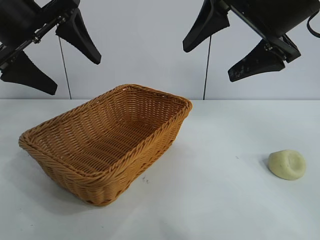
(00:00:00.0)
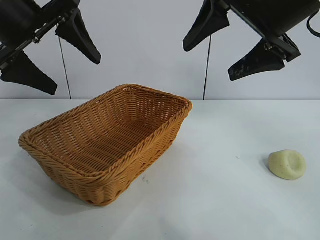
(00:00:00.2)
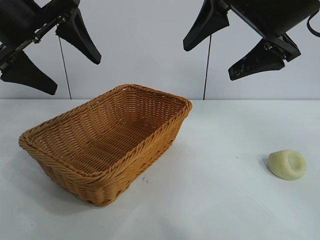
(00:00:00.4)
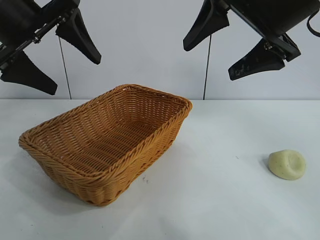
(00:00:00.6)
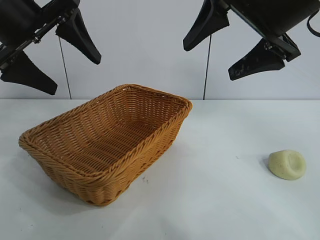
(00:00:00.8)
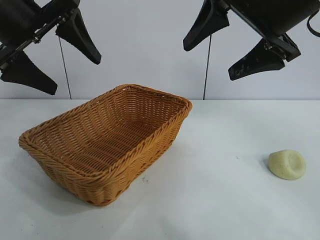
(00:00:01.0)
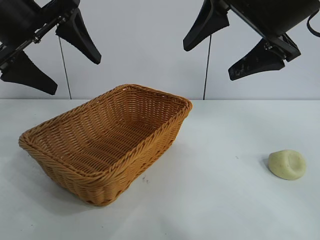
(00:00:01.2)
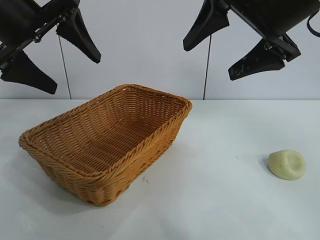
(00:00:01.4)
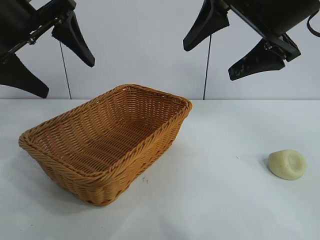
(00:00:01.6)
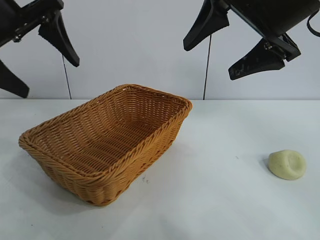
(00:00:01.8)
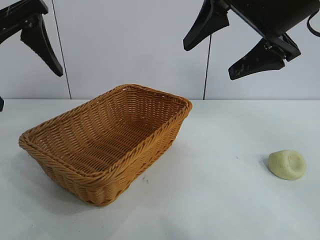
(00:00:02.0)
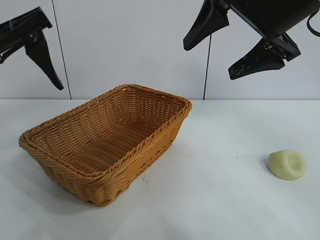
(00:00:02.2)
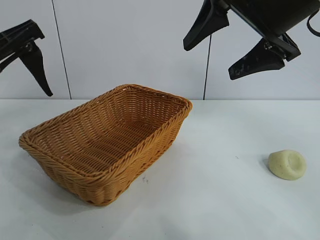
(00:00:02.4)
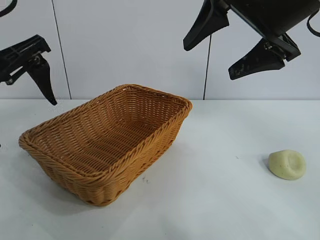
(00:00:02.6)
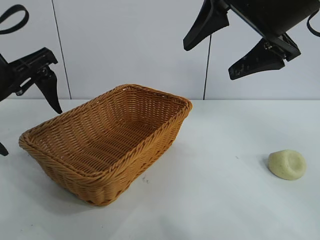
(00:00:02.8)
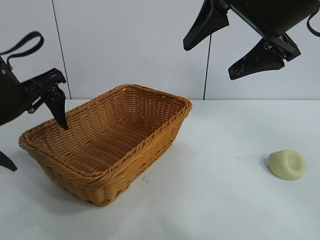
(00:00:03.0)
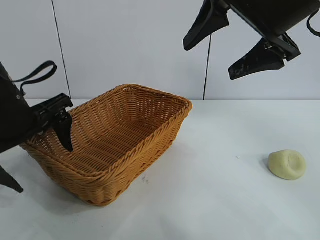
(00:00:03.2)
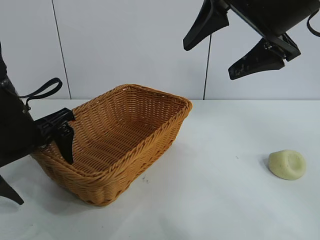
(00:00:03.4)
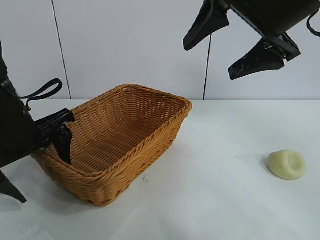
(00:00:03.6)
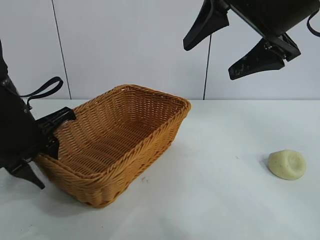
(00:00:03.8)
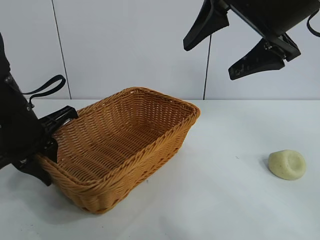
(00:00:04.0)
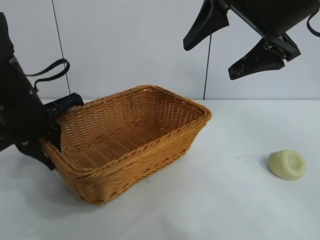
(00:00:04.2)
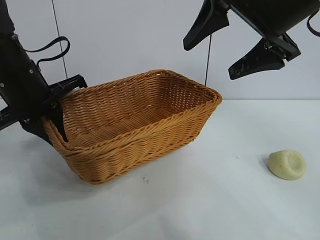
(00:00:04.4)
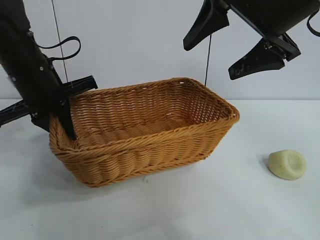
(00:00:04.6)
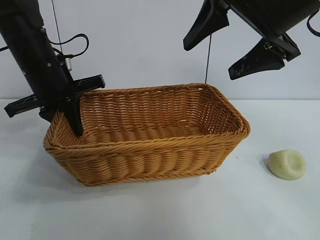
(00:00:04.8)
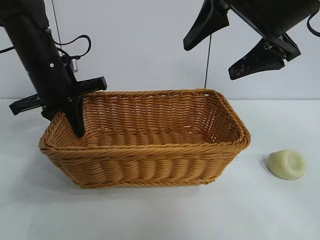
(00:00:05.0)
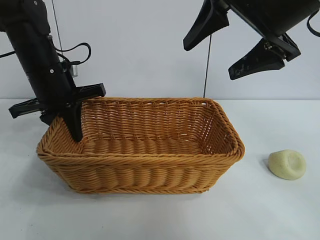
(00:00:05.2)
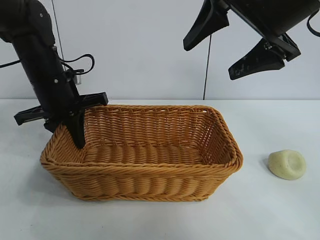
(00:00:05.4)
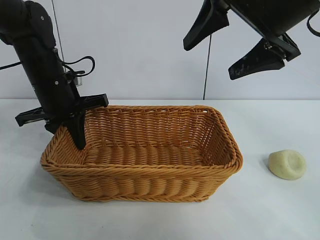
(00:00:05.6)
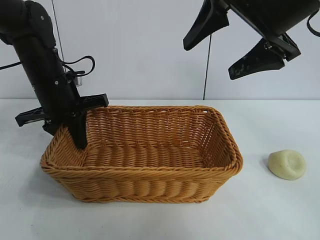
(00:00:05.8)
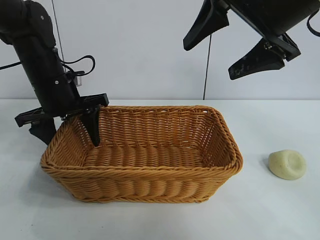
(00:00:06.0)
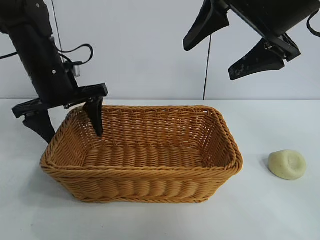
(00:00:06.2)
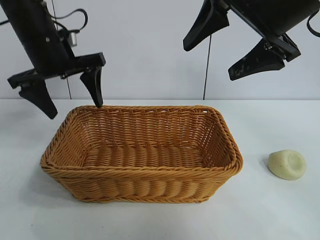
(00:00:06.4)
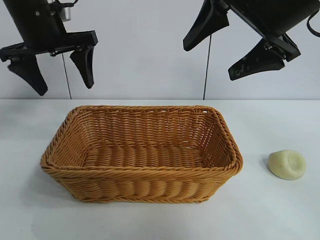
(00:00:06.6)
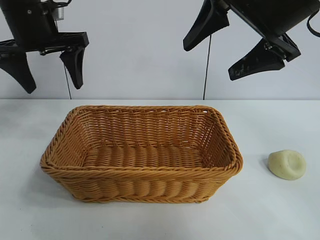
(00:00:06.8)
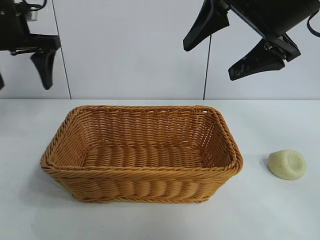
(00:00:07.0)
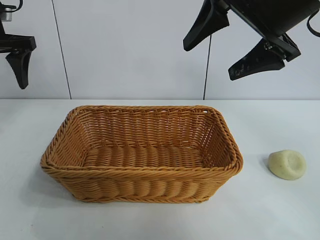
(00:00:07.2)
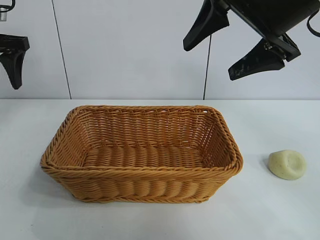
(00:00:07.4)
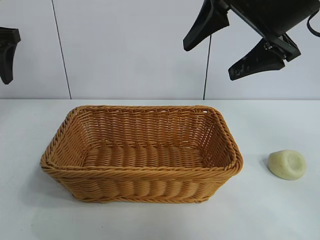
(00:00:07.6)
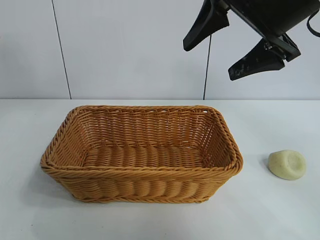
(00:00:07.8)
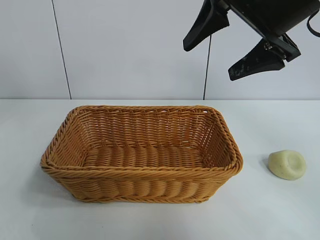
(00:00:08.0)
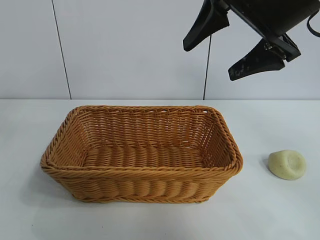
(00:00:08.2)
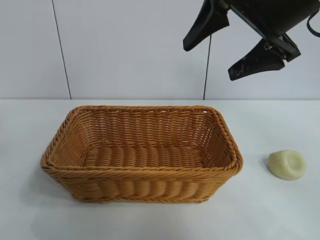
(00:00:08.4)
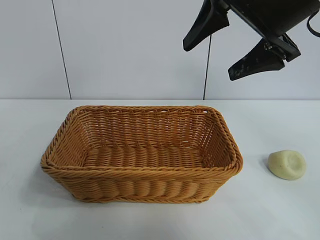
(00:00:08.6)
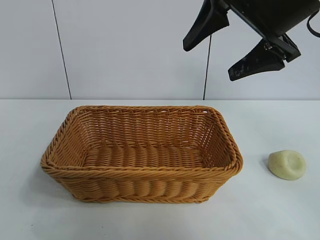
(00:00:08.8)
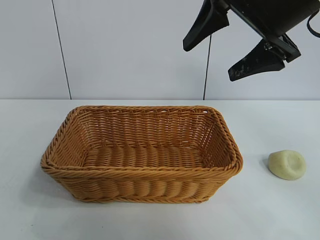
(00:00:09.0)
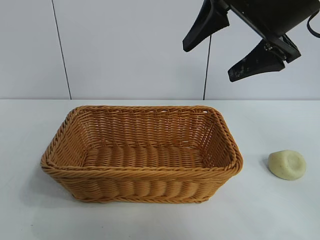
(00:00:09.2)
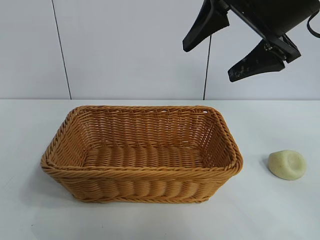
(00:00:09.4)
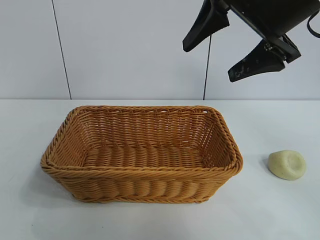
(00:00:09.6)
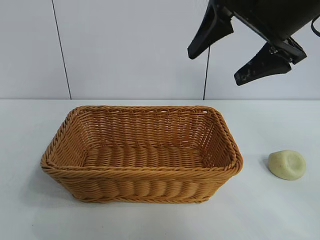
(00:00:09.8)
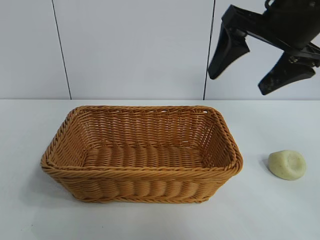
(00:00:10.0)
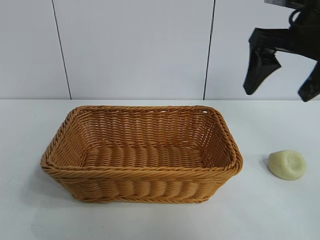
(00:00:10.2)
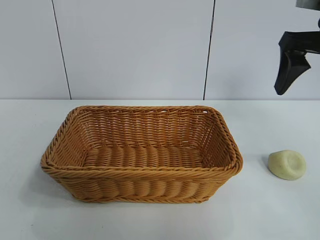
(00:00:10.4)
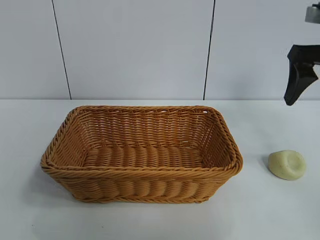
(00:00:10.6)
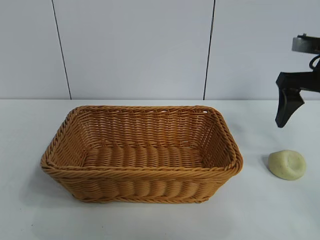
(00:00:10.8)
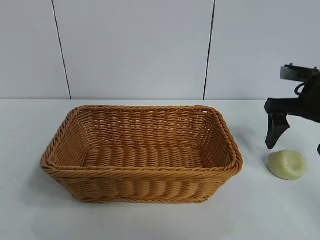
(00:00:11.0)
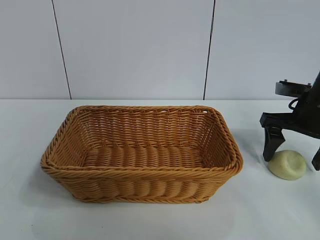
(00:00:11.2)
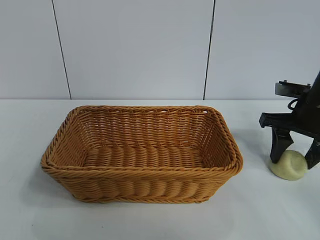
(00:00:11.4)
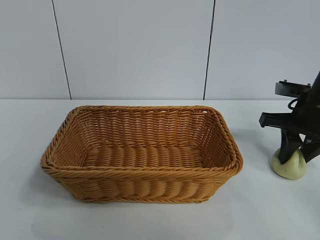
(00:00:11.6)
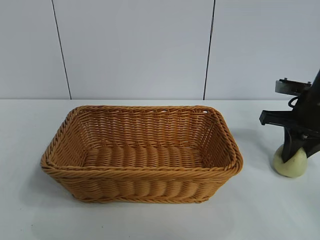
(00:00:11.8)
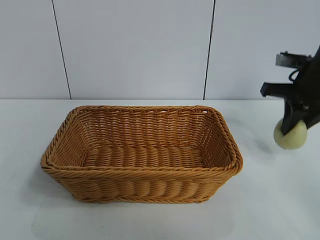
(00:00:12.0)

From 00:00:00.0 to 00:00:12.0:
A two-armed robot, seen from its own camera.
Task of the whole recording: pick up the egg yolk pastry and put it into the basket.
Step, from 00:00:01.4 to 00:00:03.8: Grasp the basket with left gripper.
Step, from 00:00:04.0 to 00:00:05.8: Place the basket in the center of view with left gripper.
Step, from 00:00:06.0 to 00:00:11.4: Grasp egg yolk pastry with right gripper.

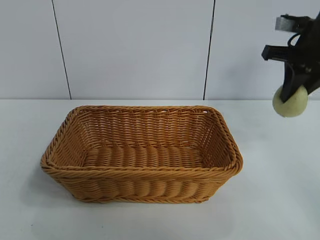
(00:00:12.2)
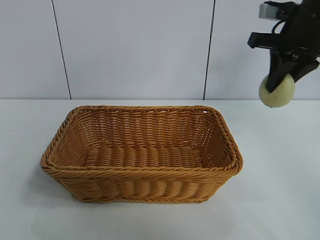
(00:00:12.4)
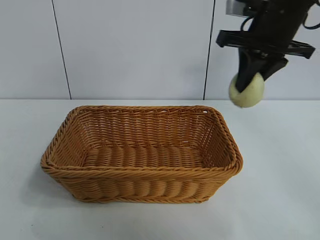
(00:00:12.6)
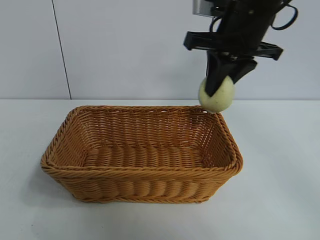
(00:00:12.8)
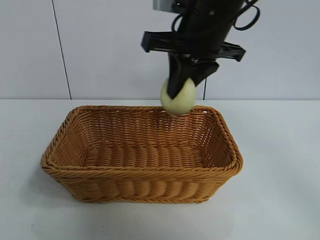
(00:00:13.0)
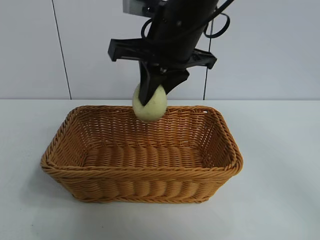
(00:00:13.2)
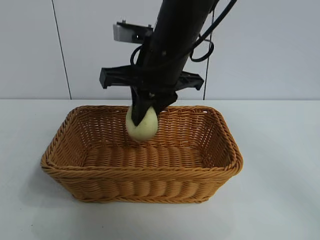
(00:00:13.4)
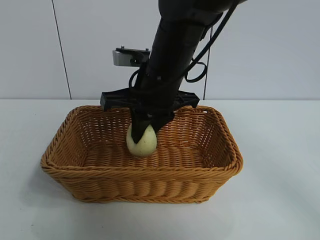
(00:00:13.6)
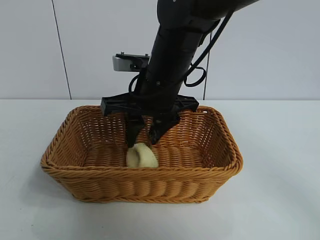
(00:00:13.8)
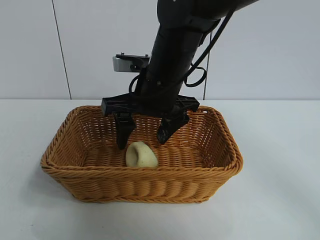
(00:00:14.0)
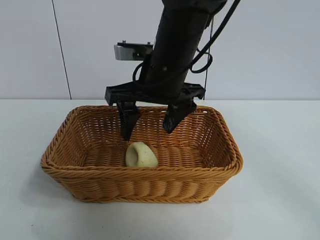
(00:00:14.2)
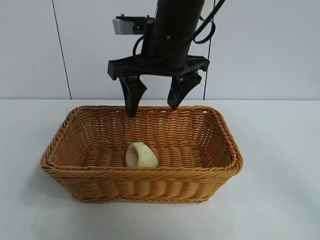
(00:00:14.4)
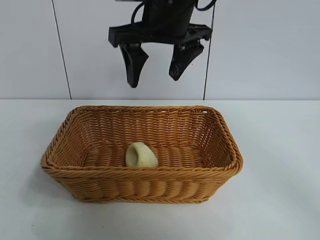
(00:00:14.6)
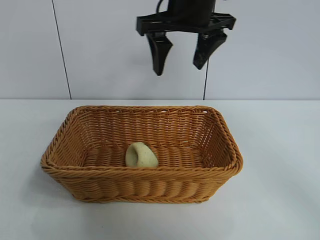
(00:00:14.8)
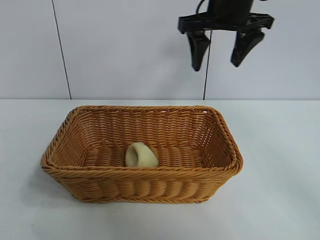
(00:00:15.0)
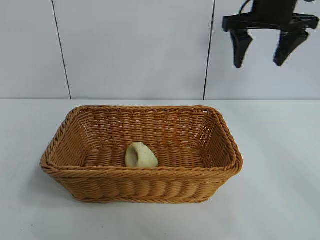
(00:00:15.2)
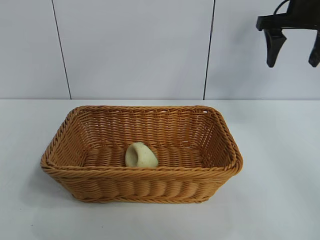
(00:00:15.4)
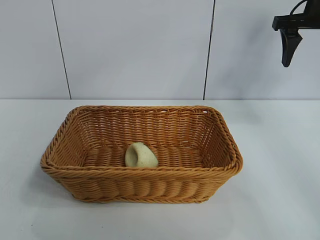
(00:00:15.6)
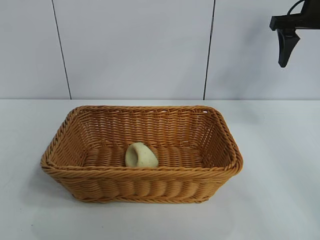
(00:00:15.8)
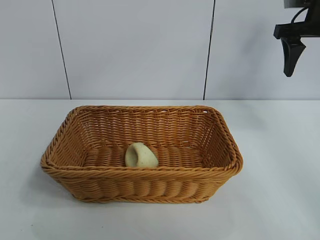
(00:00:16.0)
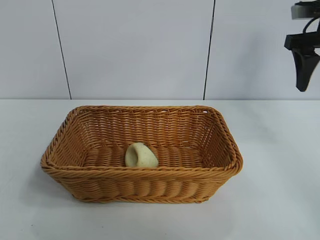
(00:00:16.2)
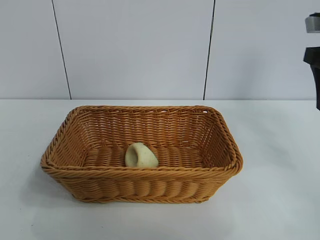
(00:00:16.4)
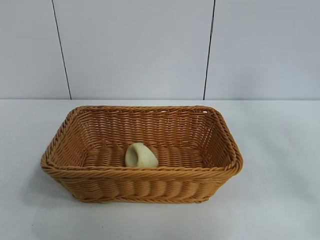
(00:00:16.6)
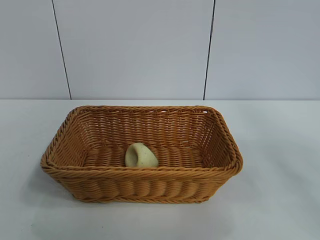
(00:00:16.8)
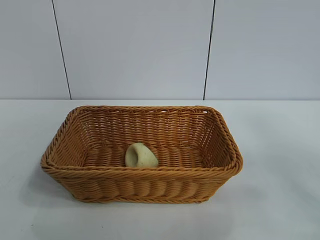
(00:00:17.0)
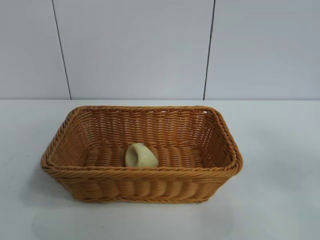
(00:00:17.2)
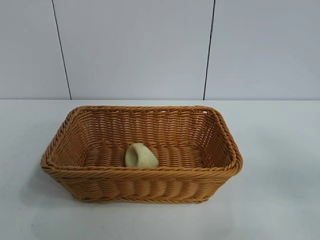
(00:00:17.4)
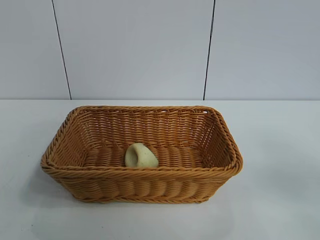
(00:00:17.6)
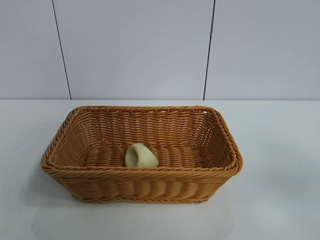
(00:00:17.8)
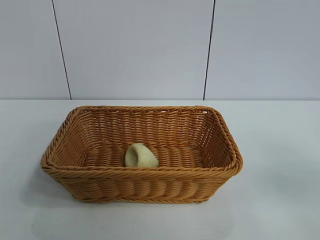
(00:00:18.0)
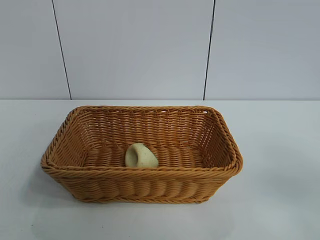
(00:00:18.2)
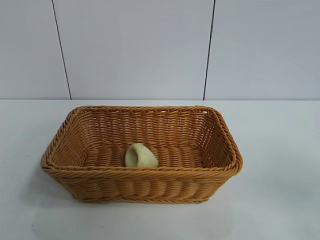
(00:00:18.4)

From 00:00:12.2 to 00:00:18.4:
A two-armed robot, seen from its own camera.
Task of the whole recording: pick up the egg yolk pastry and put it into the basket.
Step, from 00:00:12.2 to 00:00:13.6: Place the egg yolk pastry in the basket with right gripper.
